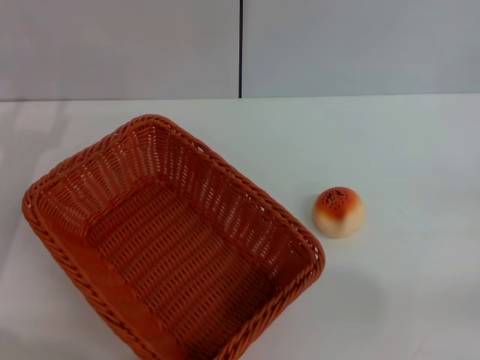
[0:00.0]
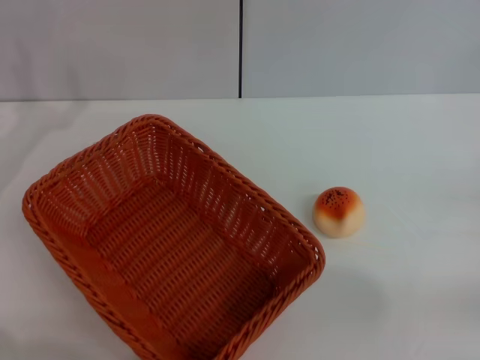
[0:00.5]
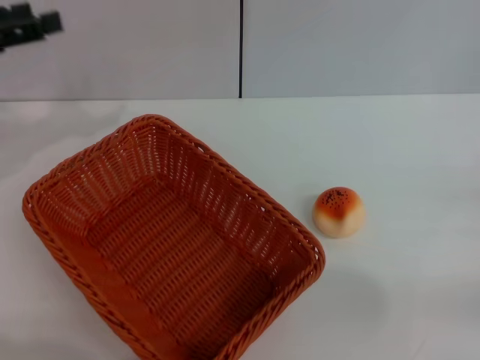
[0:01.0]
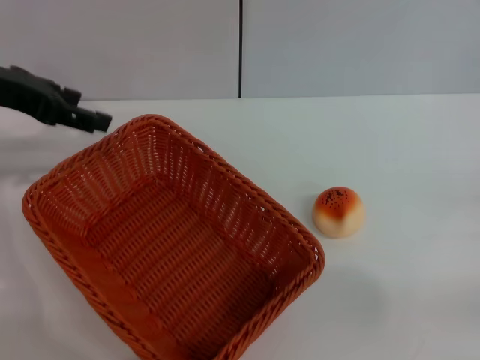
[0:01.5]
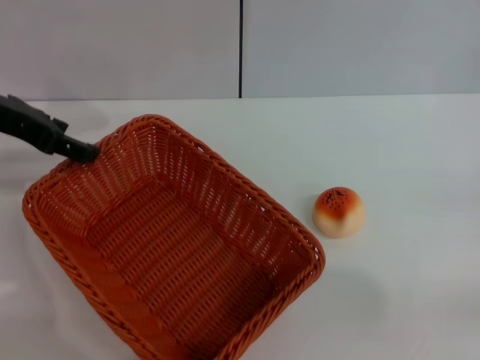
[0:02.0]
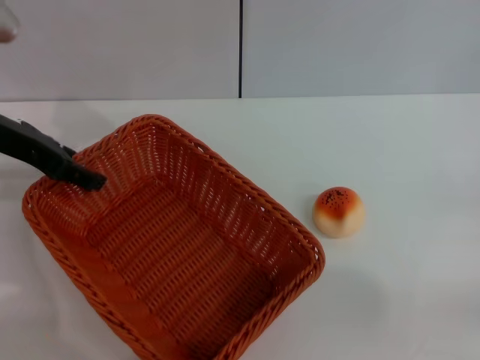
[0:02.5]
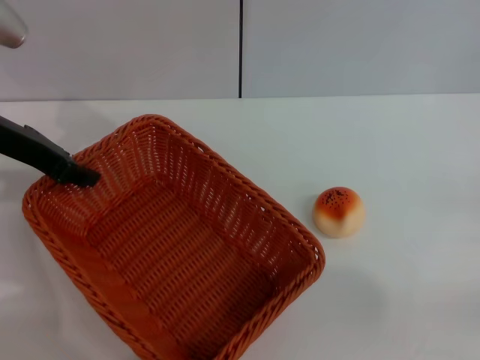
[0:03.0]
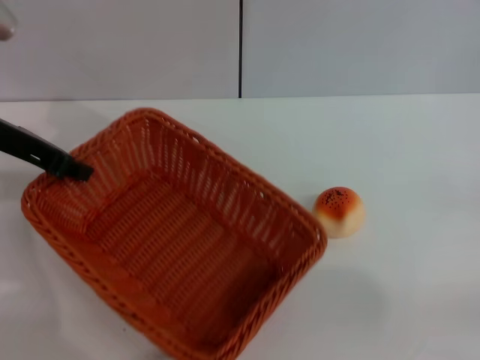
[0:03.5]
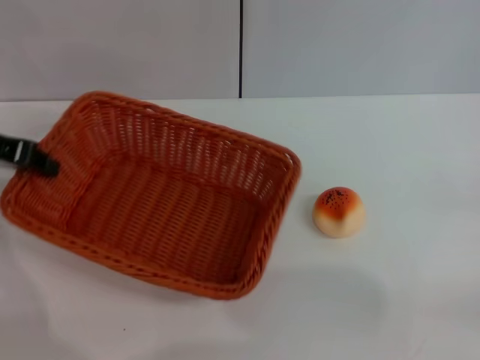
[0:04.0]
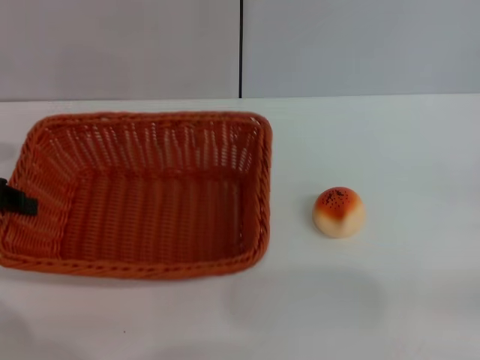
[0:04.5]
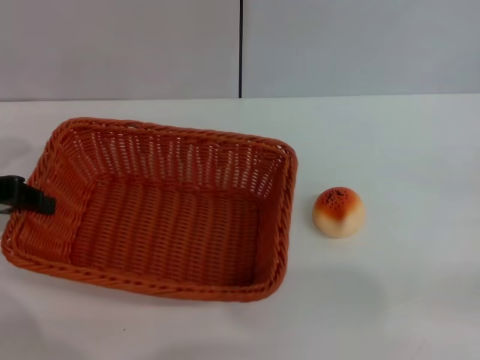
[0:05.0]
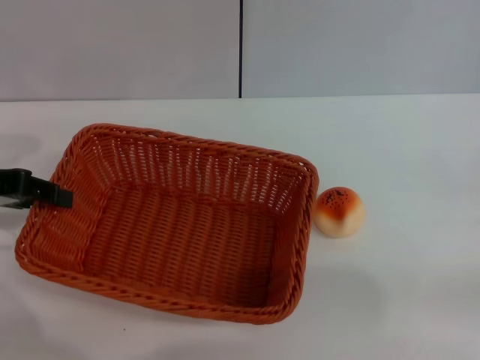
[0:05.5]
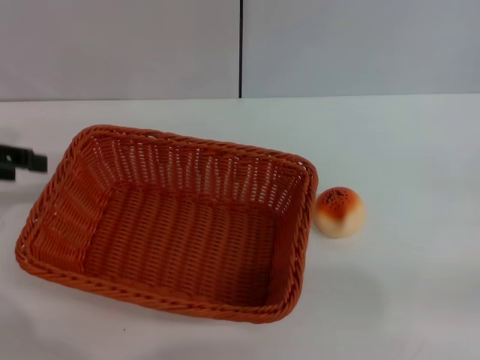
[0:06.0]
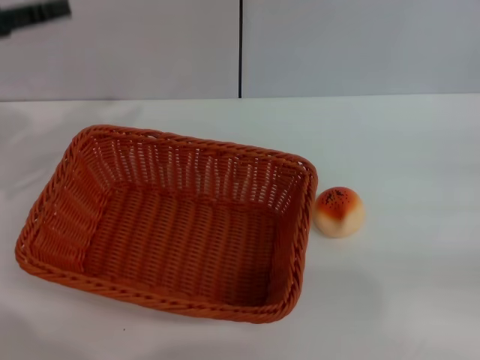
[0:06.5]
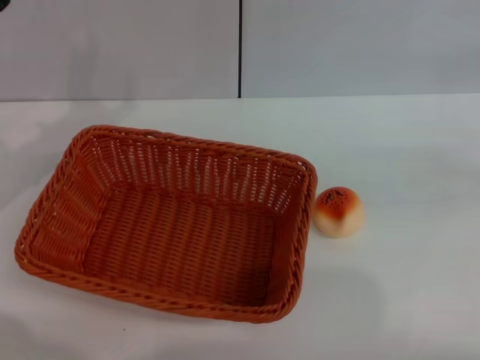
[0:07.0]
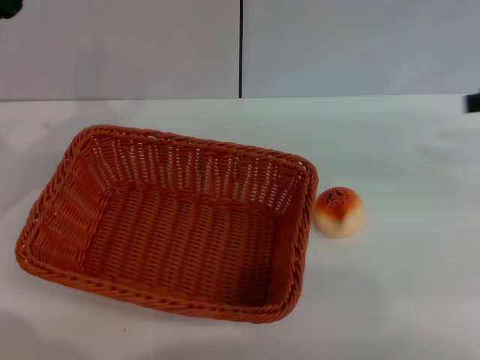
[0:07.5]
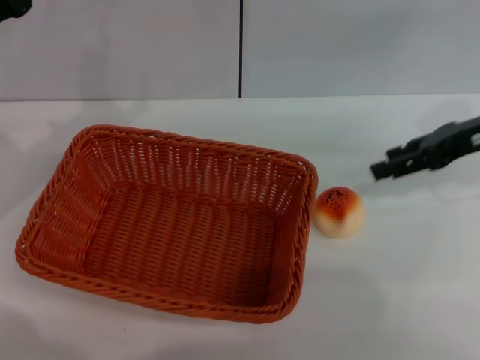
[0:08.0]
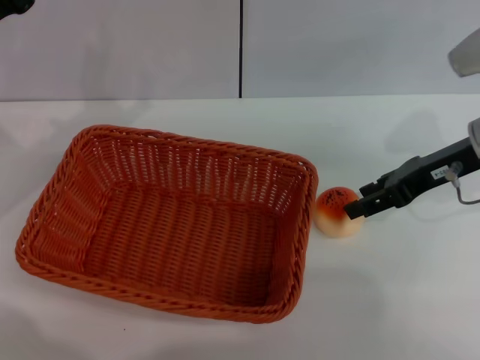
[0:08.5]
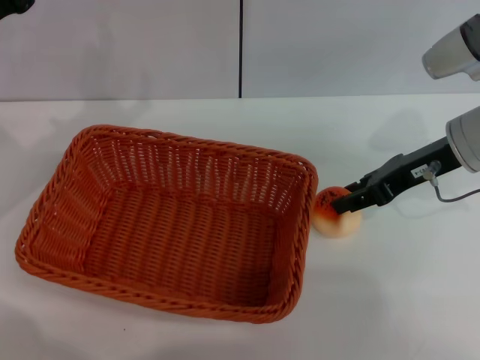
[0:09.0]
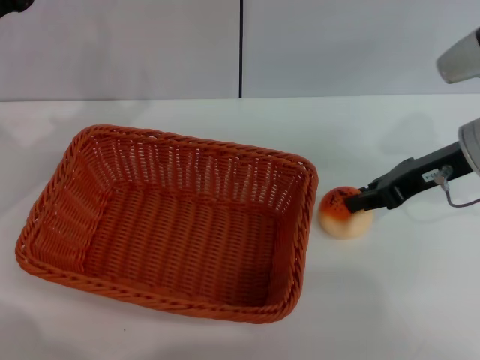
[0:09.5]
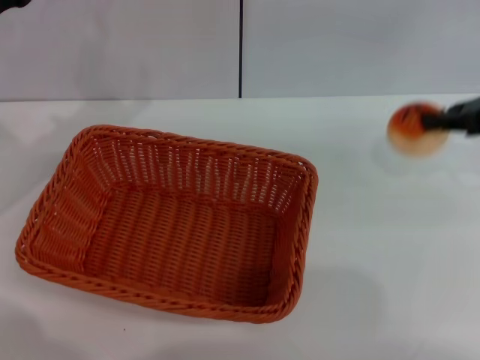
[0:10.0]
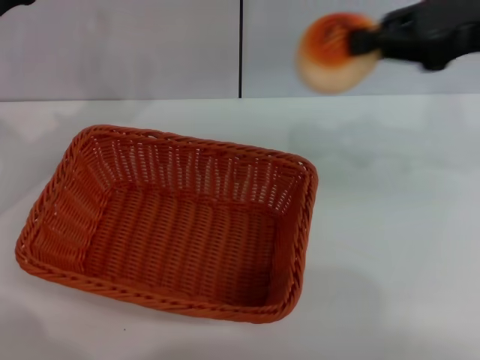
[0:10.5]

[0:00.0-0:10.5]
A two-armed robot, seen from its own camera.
Step, 0:00.0 to 0:06.0: Move the basket to the center of view with the left gripper.
Step, 0:06.5 to 0:09.5: Pick up the egg yolk pastry with the right gripper.
0:00.0 to 0:02.0: The left gripper shifts approximately 15 cm upward and forward.
0:02.0 to 0:04.0: The left gripper closes its fingers.
0:04.0 to 0:06.5: The left gripper opens its fingers; the right gripper moves some 5 cm.
0:06.5 to 0:08.5: The right gripper moves to the left and forward, about 20 cm, while the left gripper heads downward, covering roughly 5 cm.
0:08.5 to 0:10.5: The right gripper shifts roughly 10 cm upward, and closes.

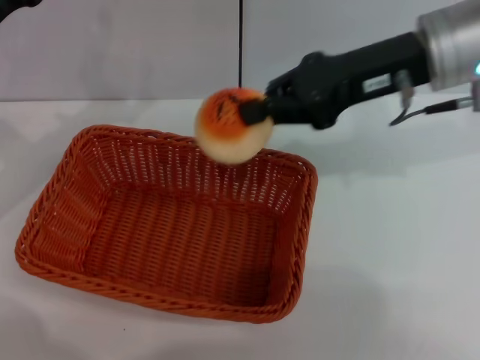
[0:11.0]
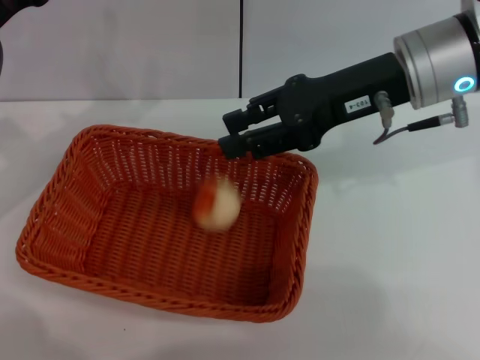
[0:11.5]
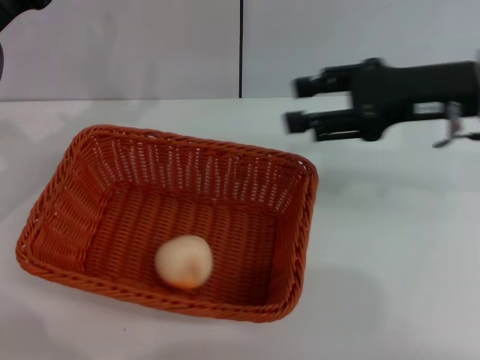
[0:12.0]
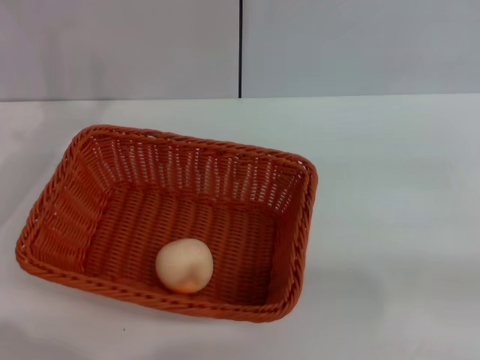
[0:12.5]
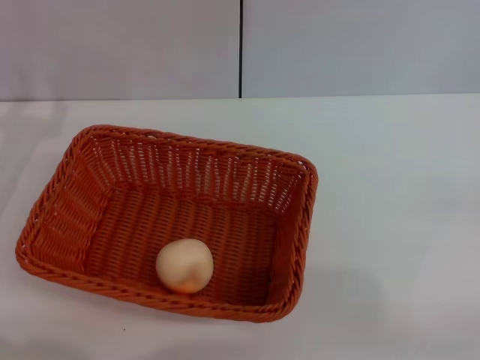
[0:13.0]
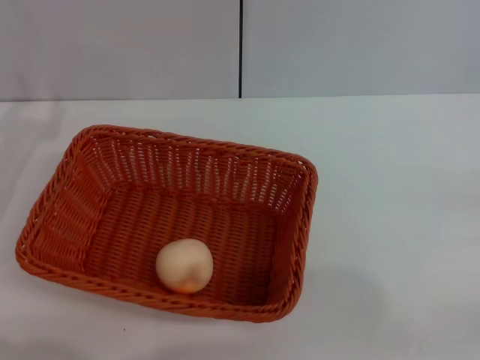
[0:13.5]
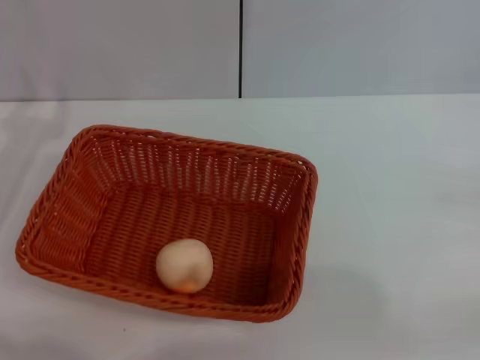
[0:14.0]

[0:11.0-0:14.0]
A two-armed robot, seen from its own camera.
0:11.0 to 0:12.5: The left gripper changes place by some 5 cm, while the right gripper is displaced to the right, backward and downward by approximately 30 cm, and opens up.

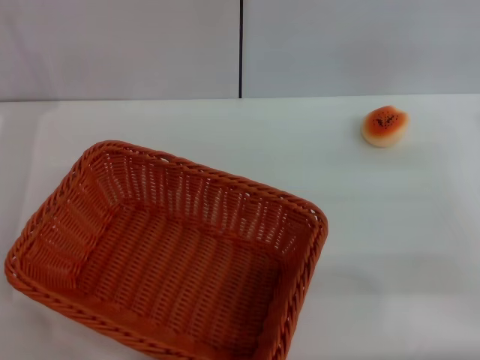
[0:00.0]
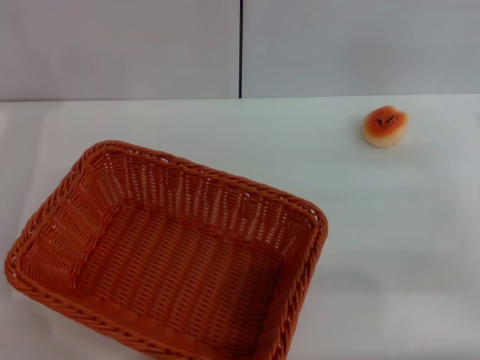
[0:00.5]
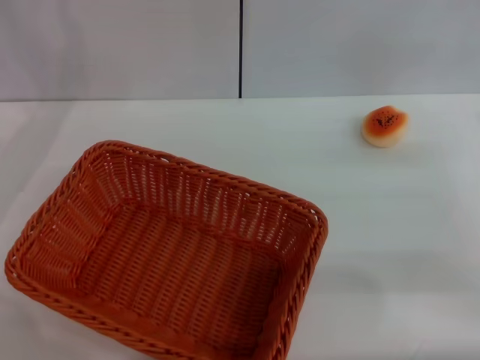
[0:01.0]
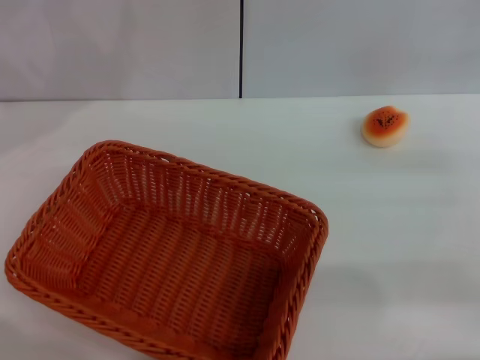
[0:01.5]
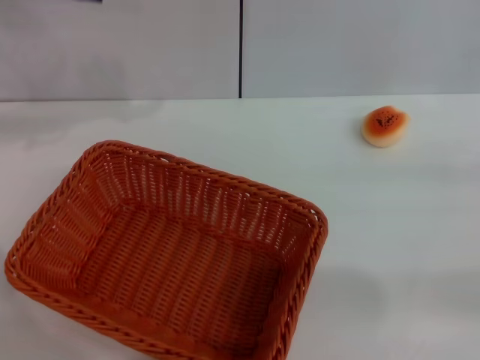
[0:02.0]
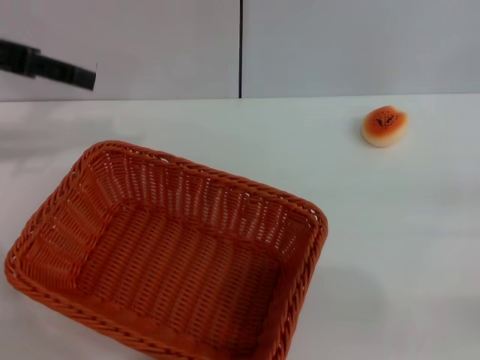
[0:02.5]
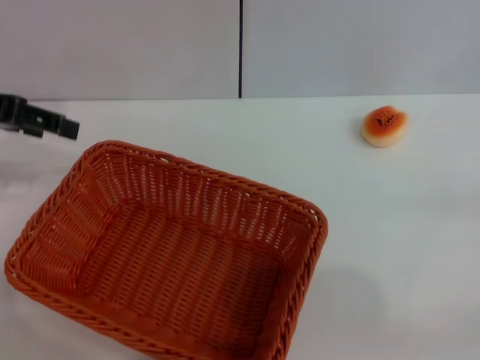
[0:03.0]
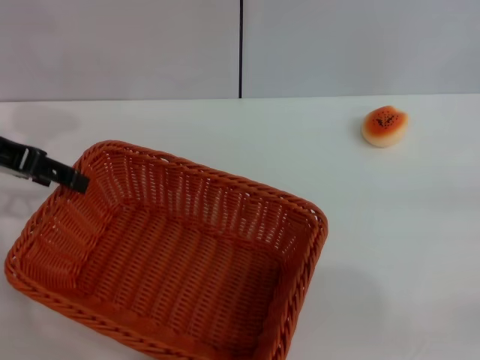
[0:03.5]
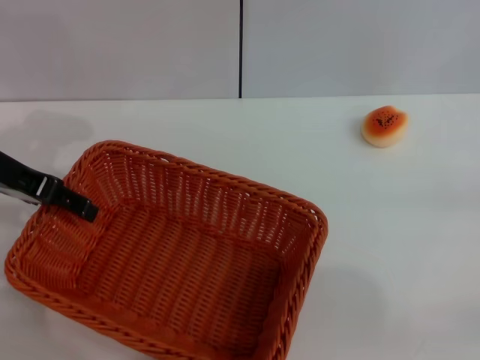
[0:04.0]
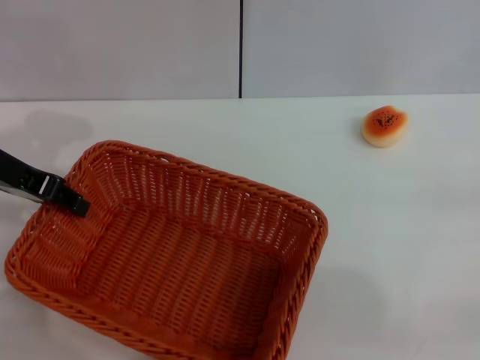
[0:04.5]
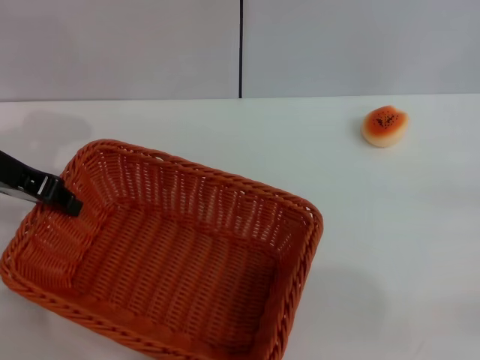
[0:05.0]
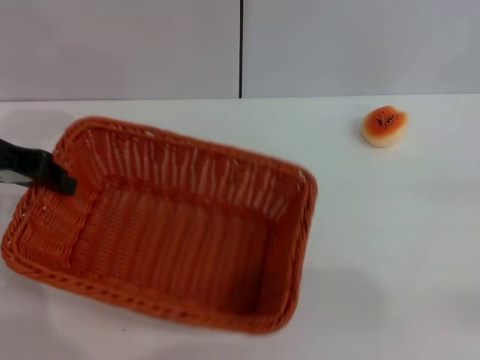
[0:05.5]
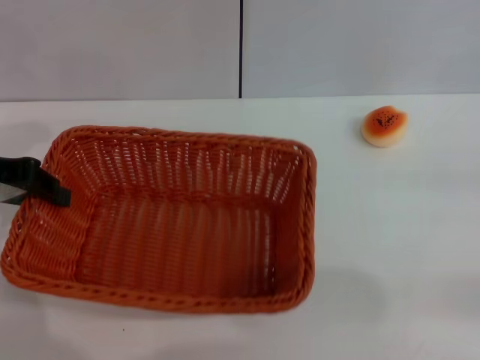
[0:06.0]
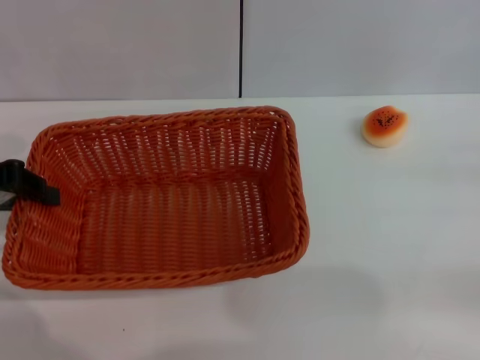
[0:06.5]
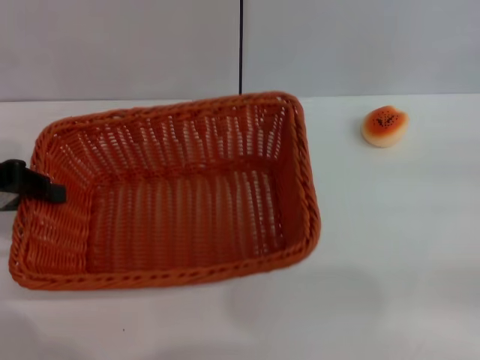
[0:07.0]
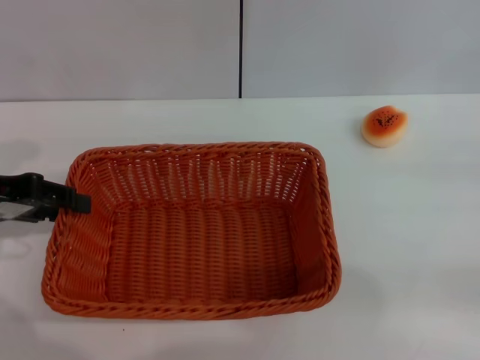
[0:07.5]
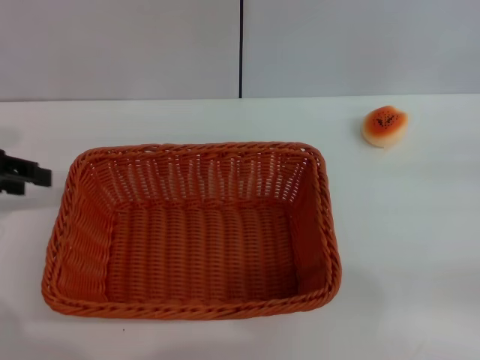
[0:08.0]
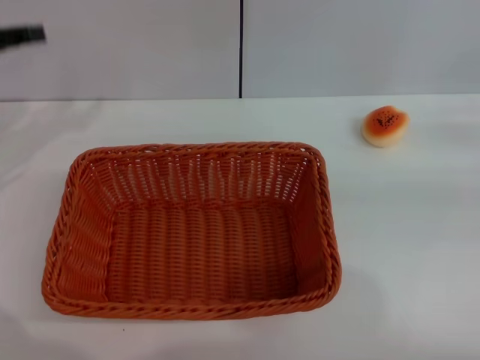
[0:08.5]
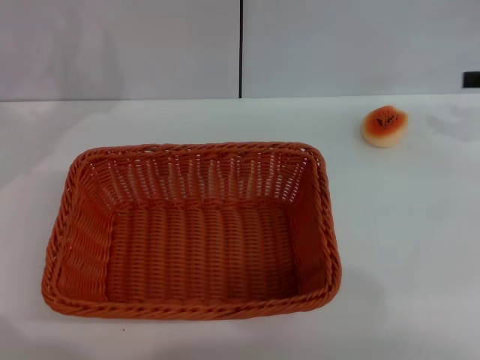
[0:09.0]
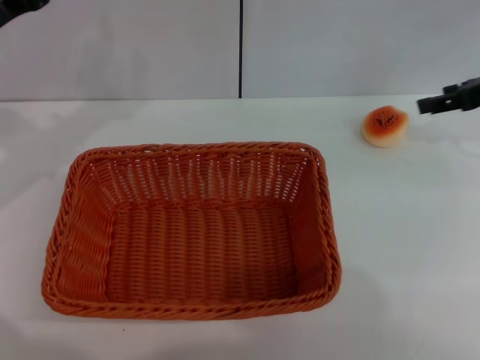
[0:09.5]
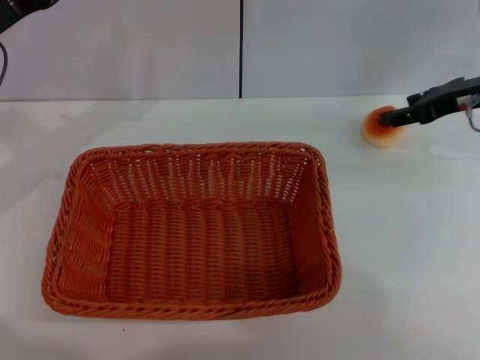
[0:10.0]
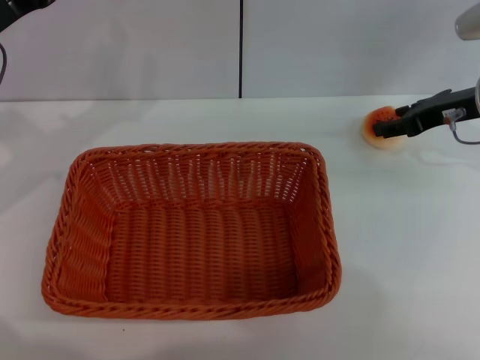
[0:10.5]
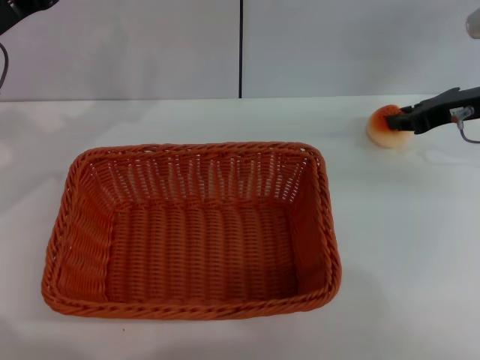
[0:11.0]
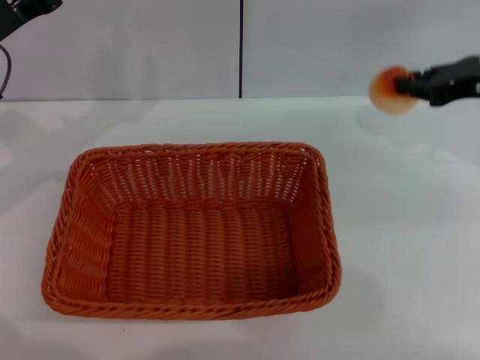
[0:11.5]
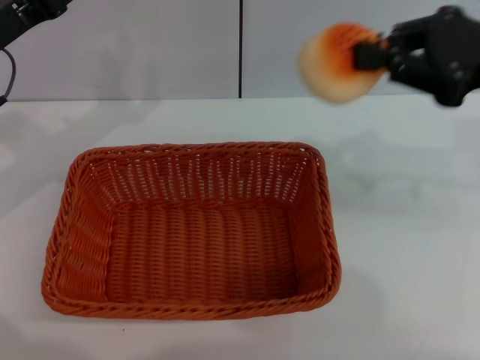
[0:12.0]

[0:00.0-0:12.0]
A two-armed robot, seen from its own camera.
Step, 0:00.0 to 0:08.0: Move the basket to the center of view with the left gripper.
Step, 0:08.5 to 0:11.5: Pick up the egg yolk pastry with the right gripper.
0:02.0 to 0:04.0: The left gripper moves downward, approximately 10 cm.
0:04.0 to 0:06.0: The left gripper closes.
0:06.0 to 0:08.0: The left gripper opens.
0:08.0 to 0:10.0: The right gripper travels forward and to the left by some 20 cm. The left gripper travels to the right by about 5 cm.
0:10.0 to 0:12.0: The right gripper shifts approximately 15 cm backward and upward, and closes.
